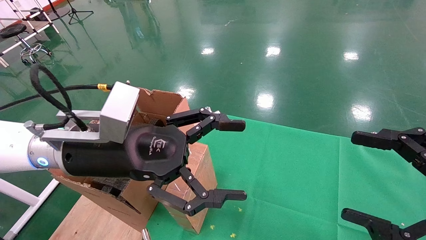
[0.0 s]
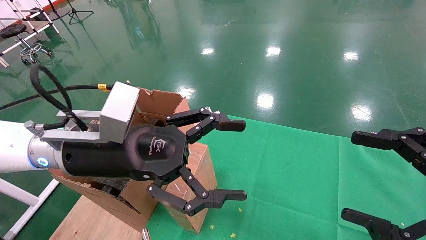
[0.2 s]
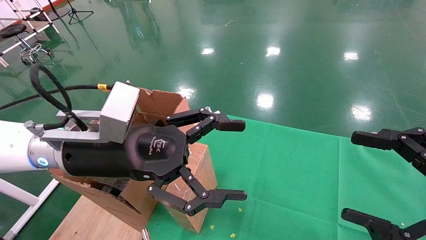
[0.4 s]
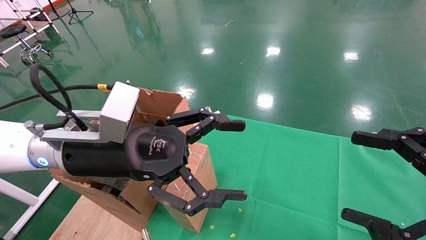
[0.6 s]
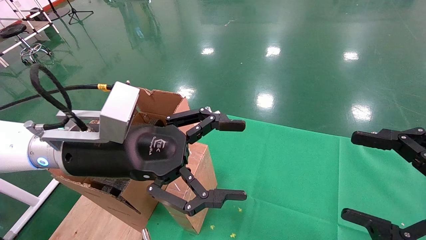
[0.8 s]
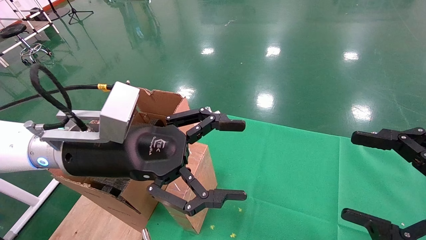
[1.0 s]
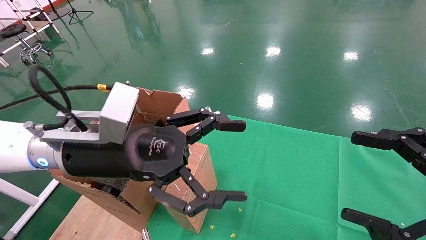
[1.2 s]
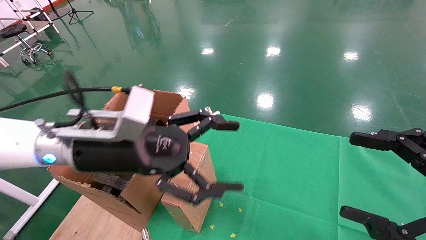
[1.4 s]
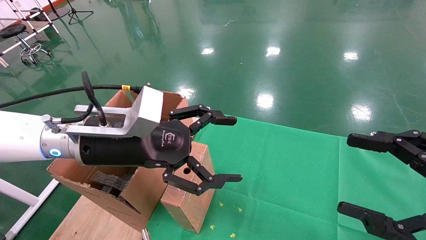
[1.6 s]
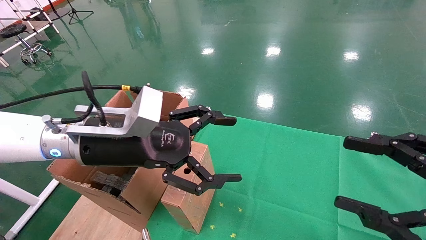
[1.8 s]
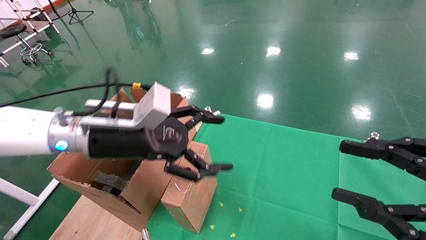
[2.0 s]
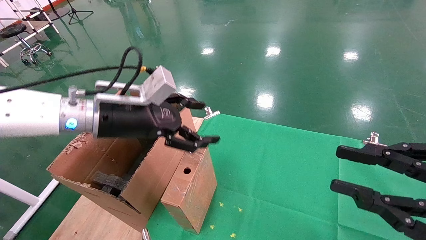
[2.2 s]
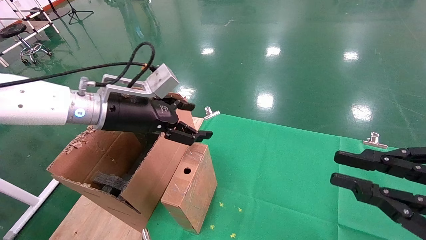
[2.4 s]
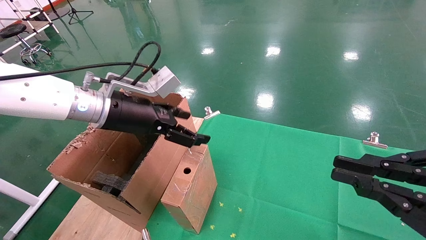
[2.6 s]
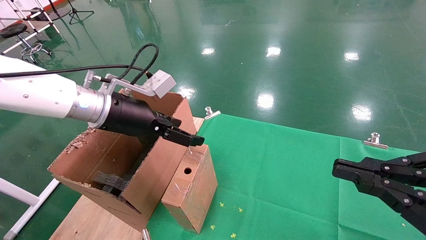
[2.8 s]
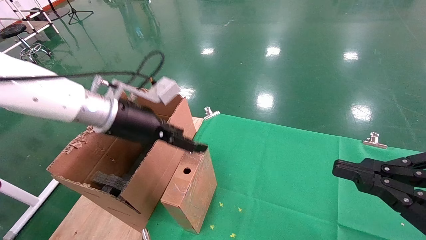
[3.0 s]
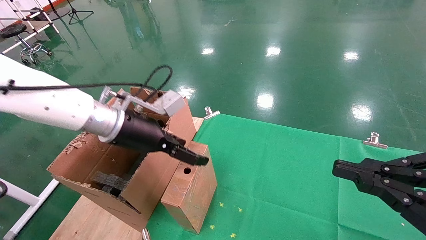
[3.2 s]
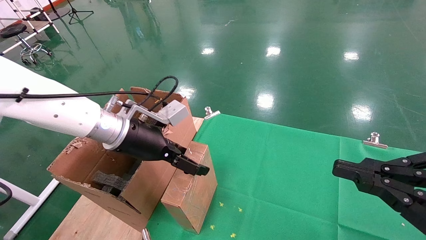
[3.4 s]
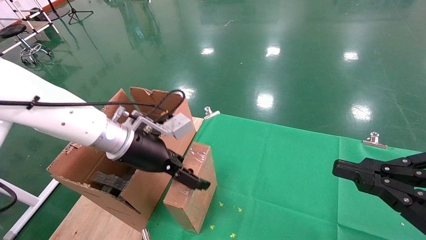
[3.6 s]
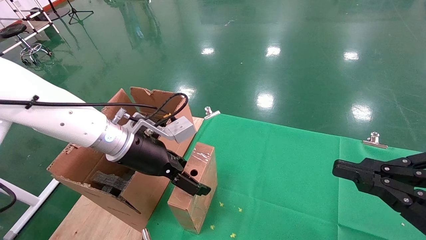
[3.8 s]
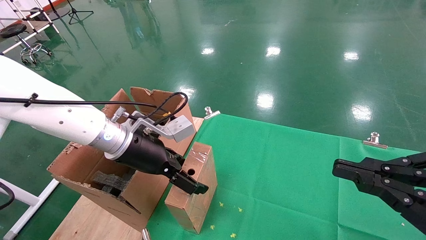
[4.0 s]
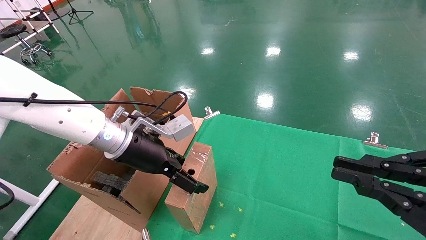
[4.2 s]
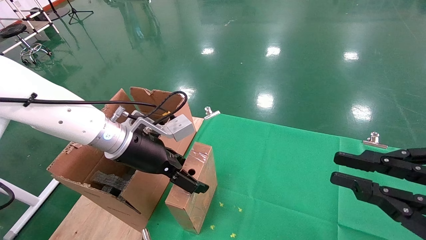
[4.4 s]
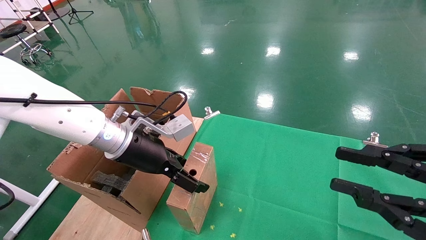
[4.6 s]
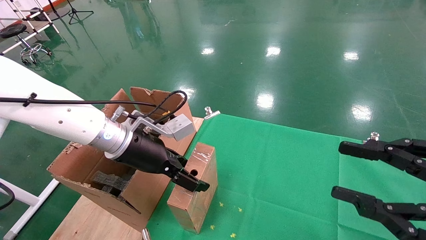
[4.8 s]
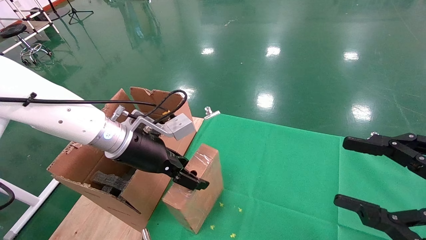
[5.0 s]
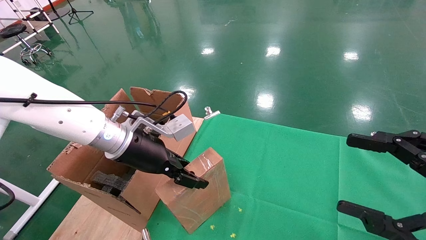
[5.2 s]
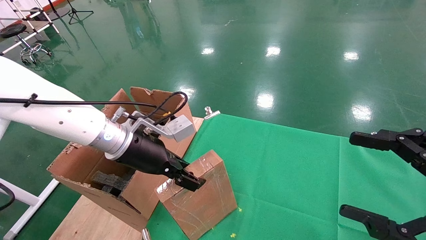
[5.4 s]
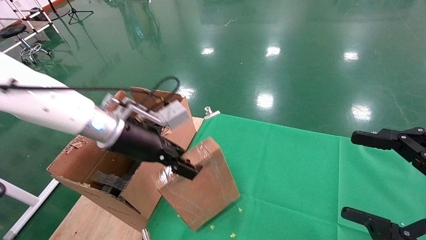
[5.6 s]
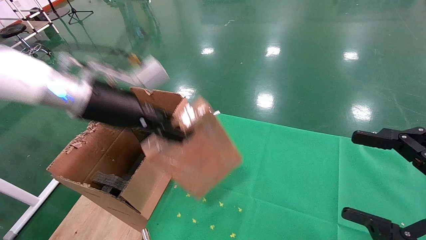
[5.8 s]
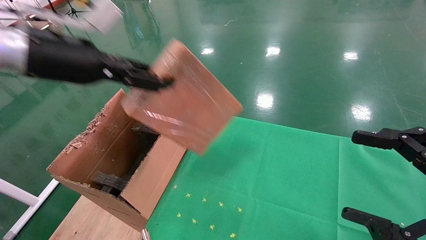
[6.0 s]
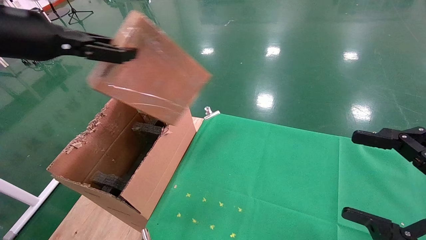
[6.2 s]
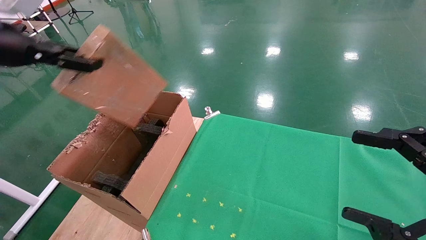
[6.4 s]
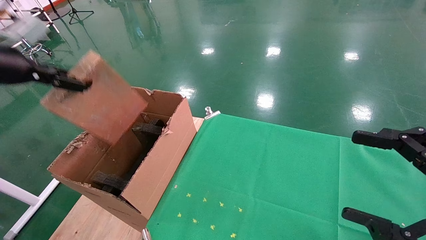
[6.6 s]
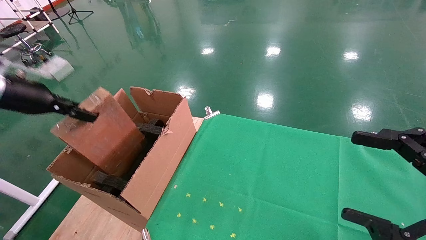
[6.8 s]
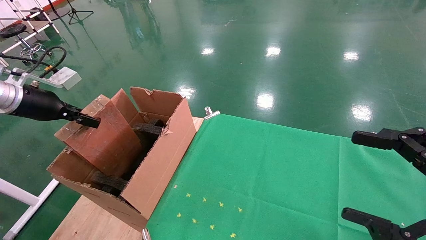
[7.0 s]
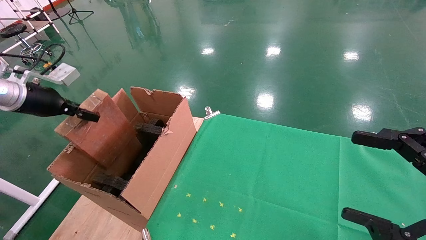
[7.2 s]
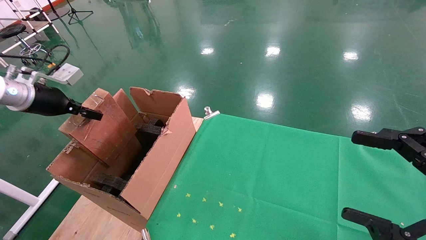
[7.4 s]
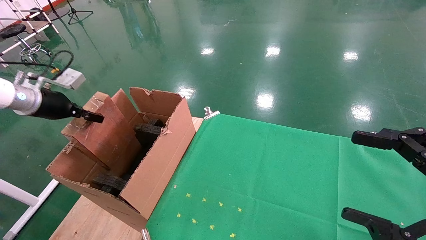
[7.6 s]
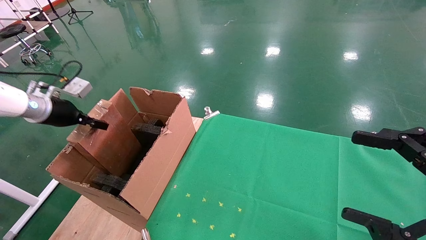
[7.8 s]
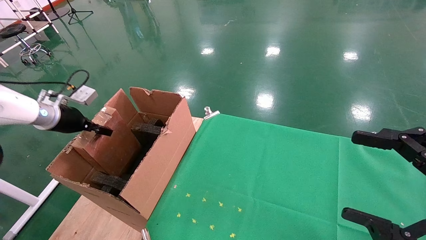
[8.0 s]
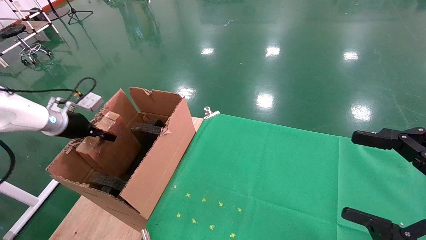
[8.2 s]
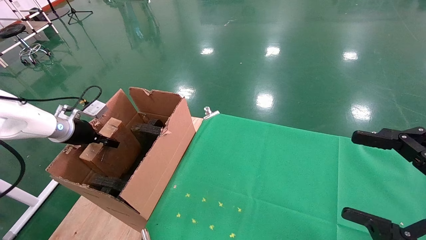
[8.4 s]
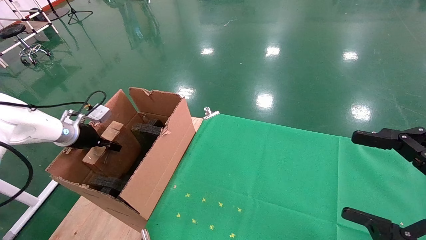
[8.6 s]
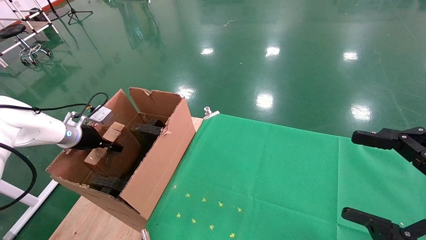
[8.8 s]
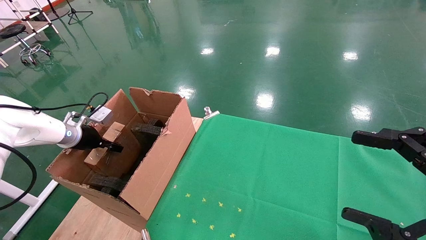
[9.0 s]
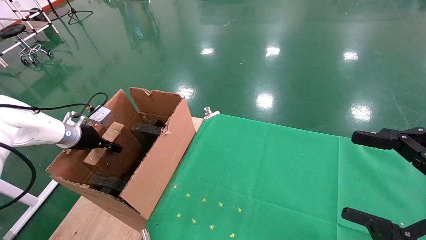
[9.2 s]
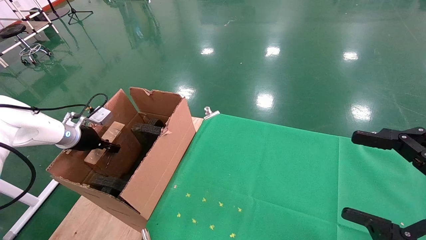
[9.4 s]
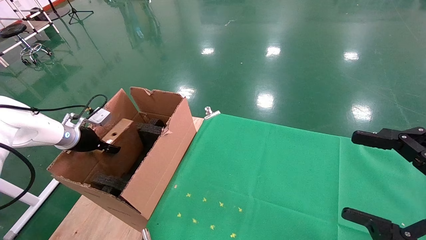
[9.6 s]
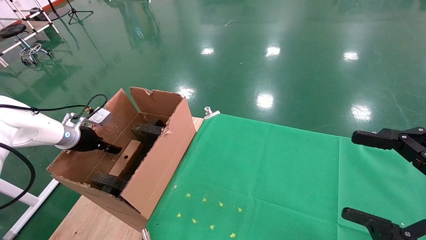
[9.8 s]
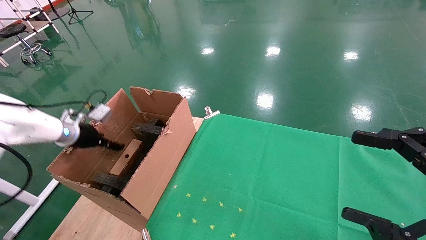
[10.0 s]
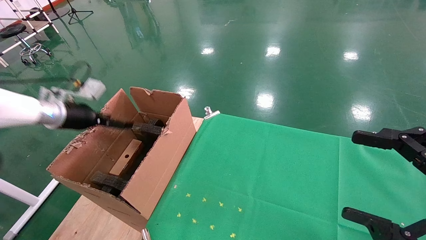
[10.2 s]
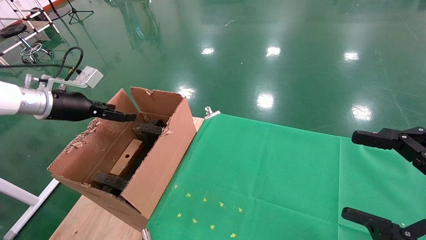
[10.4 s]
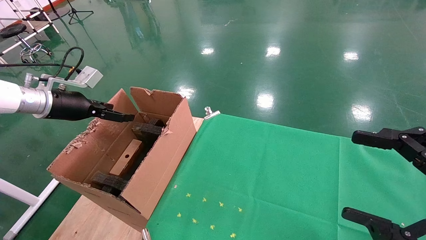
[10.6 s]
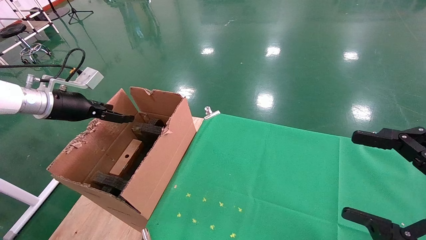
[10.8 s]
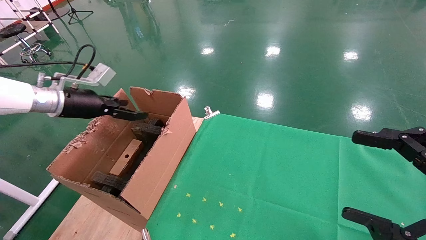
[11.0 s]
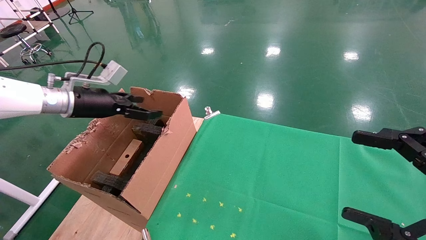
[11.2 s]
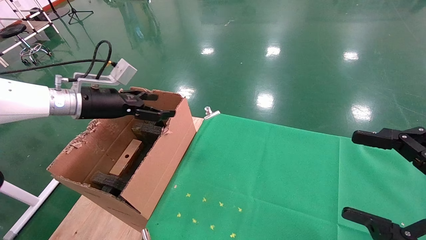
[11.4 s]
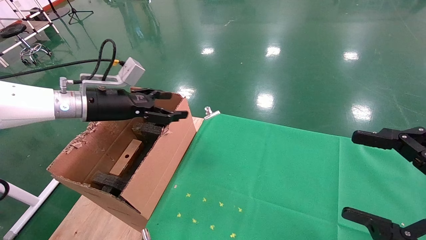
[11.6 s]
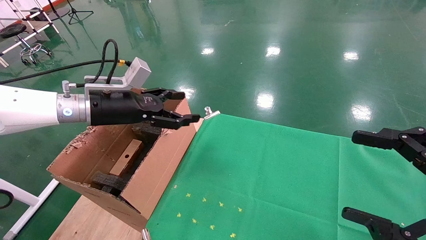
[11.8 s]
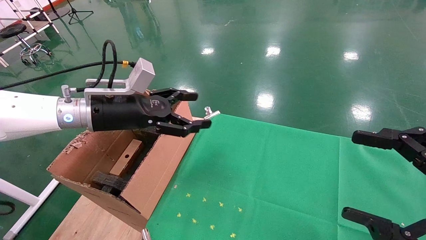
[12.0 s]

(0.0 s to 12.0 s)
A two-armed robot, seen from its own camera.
Task of the whole recording: using a robotic arm to pick up a cardboard box and palace it the carton.
Step, 1.4 s - 5.2 s: Pick up the mouse and the power cord paper box.
Step, 5.4 s - 10.0 s: Place the mouse and the power cord paper box into the container.
0.0 s - 1.6 s: There are only small adjustments of the grippers.
1.6 s - 3.0 s: The left gripper heads forward, covering about 5 cm. Meanwhile the right gripper closes.
3.0 s - 4.4 s: The grippers stay close to where they were, moving slightly.
4.4 s - 6.0 s: The left gripper shifts roughly 20 cm upward and to the left, and closes up; the right gripper opens.
6.0 s - 7.6 s: The left gripper goes roughly 25 cm to the left, downward and forward.
7.6 s - 9.0 s: The left gripper moves downward, about 10 cm.
9.0 s - 10.4 s: The left gripper is displaced upward by some 10 cm, and opens.
10.4 s - 12.0 s: The left gripper shifts some 20 cm to the right.

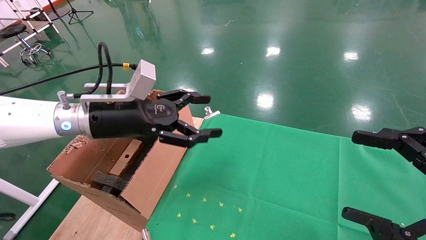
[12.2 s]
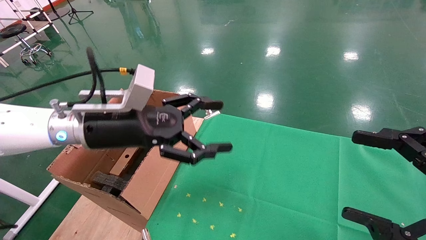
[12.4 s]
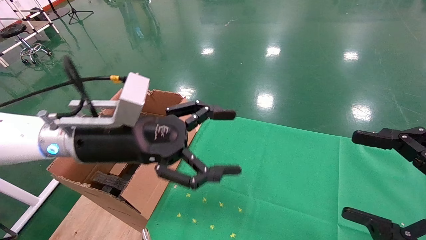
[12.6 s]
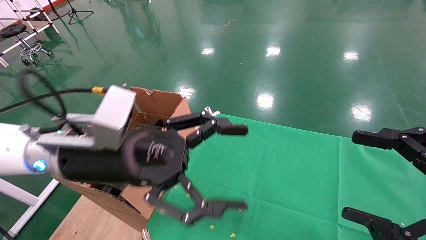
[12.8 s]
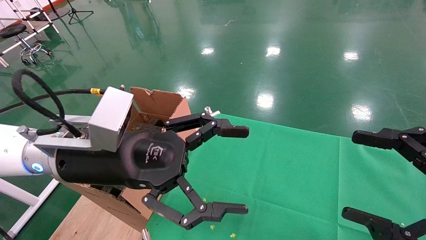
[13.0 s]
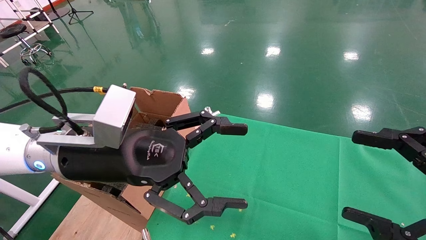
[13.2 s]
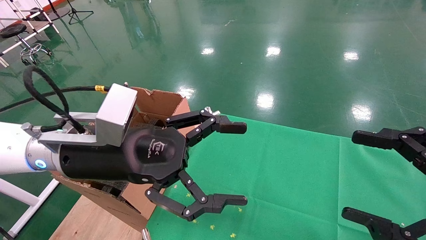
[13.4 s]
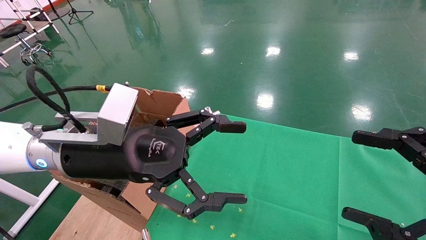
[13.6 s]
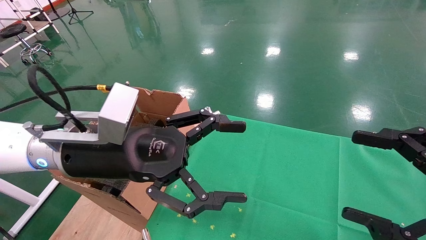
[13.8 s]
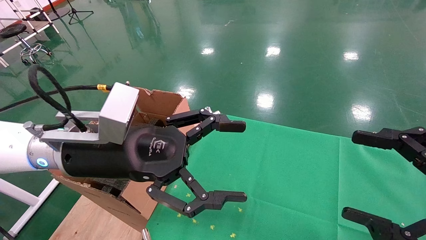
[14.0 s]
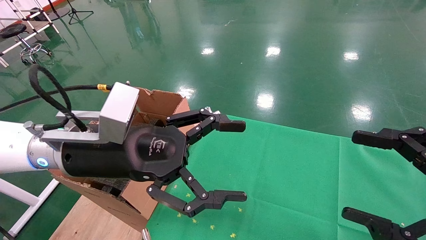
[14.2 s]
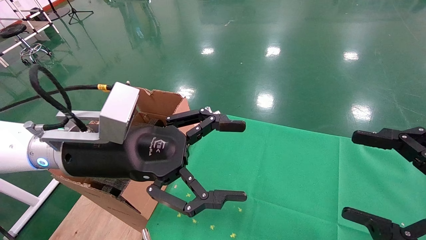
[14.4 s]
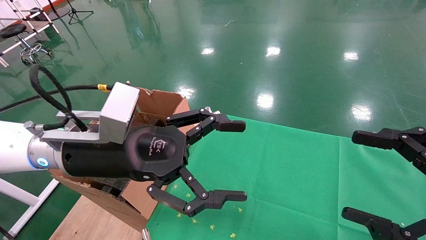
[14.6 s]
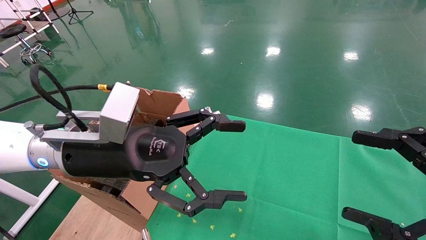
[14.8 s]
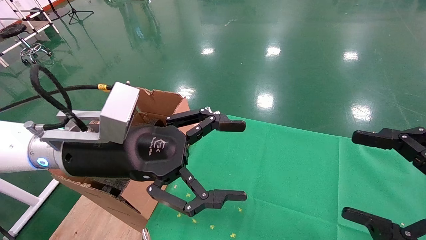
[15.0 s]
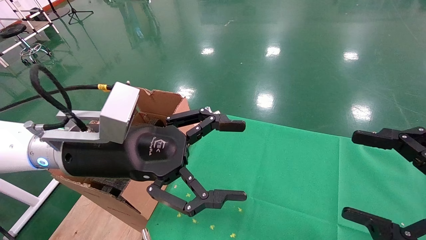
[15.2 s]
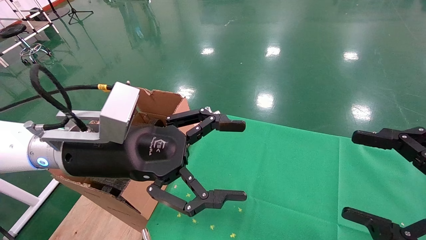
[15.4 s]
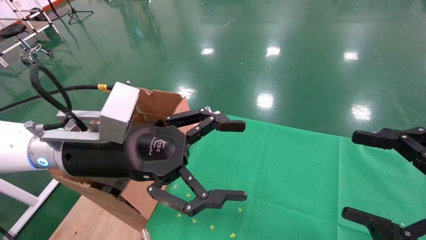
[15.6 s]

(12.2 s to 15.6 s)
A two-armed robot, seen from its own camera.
Task of the whole recording: using a robotic arm to pick up a cardboard box and palace it the carton.
12.2 s - 13.8 s: The left gripper shifts roughly 10 cm backward and to the right.
13.8 s - 15.6 s: Both grippers stay about where they are.
